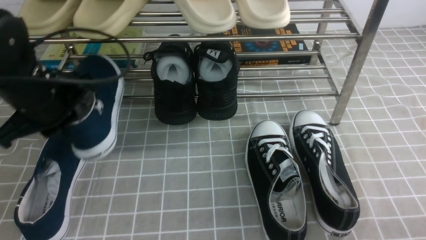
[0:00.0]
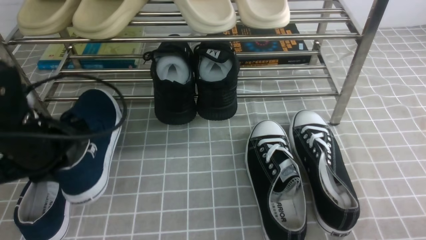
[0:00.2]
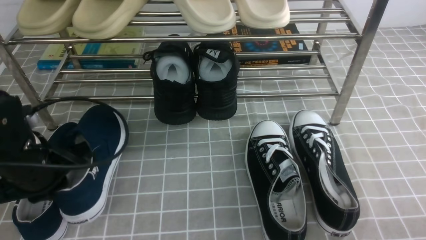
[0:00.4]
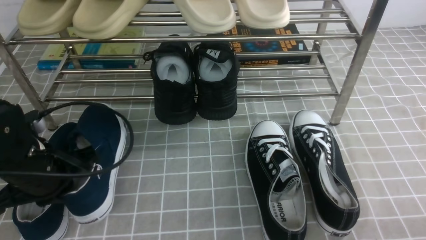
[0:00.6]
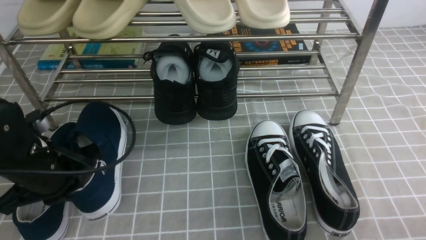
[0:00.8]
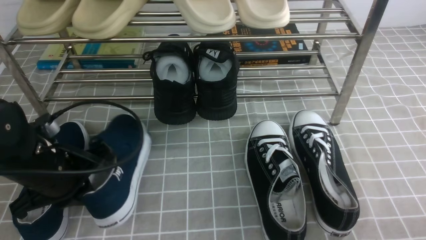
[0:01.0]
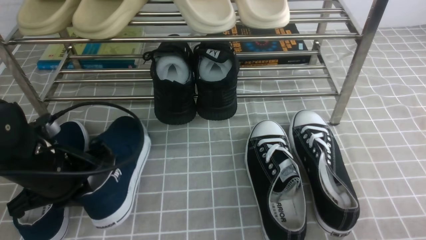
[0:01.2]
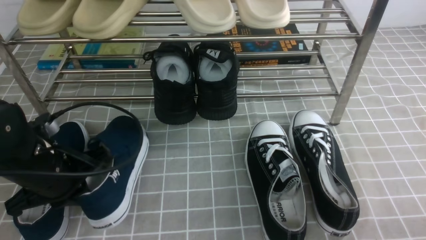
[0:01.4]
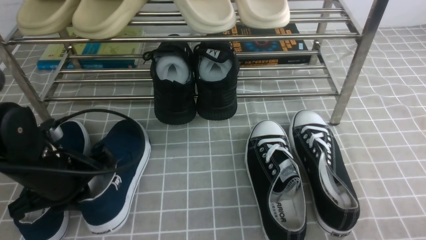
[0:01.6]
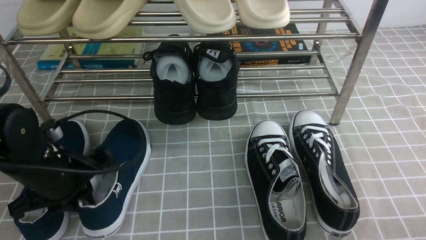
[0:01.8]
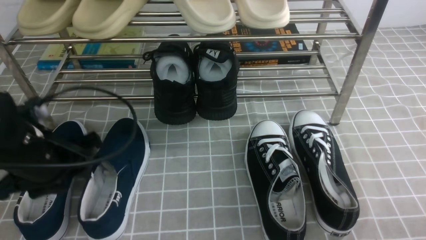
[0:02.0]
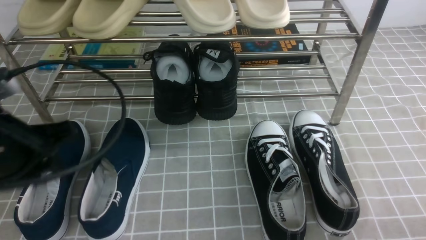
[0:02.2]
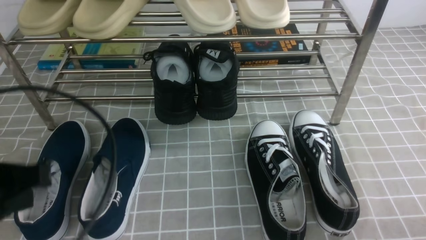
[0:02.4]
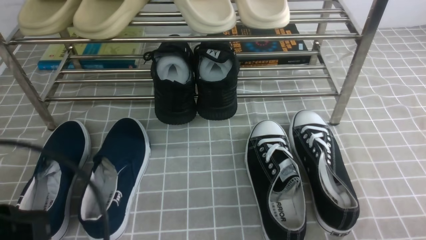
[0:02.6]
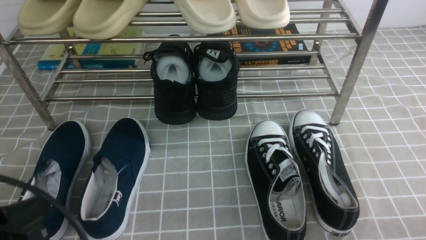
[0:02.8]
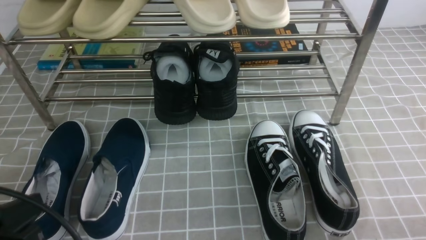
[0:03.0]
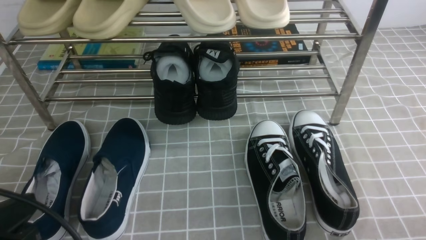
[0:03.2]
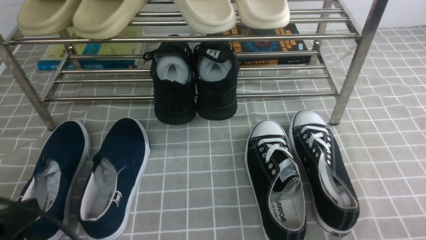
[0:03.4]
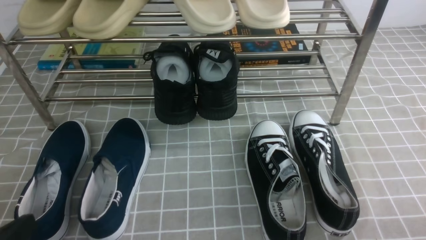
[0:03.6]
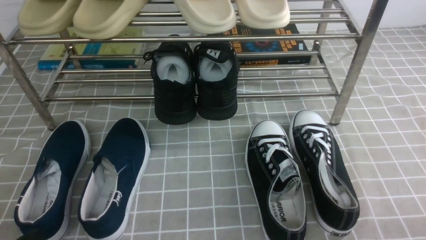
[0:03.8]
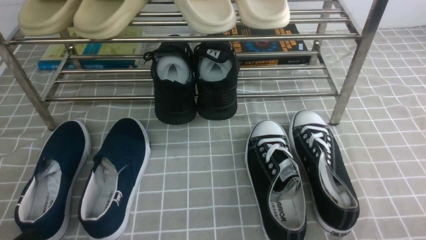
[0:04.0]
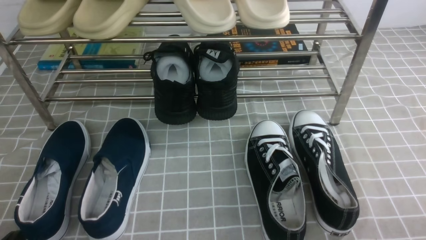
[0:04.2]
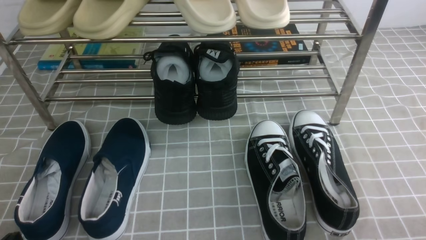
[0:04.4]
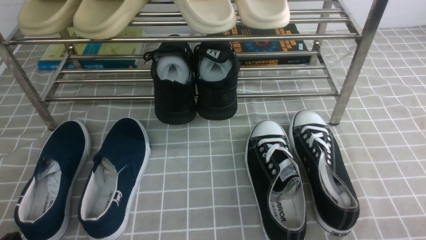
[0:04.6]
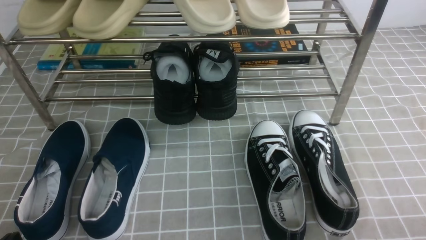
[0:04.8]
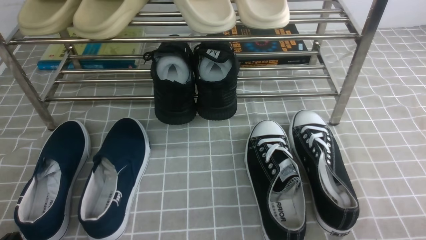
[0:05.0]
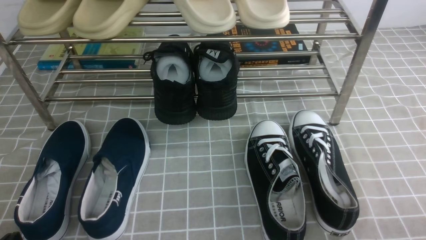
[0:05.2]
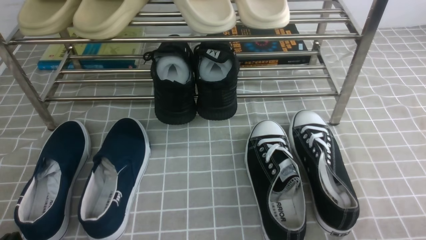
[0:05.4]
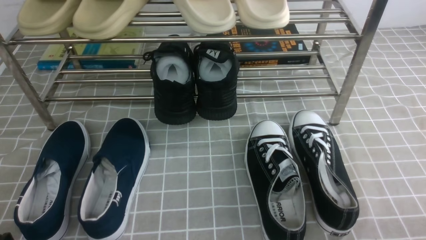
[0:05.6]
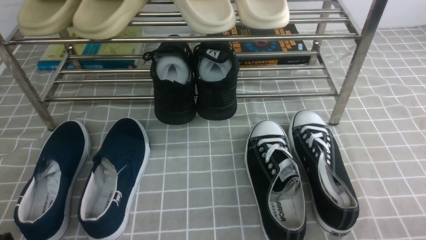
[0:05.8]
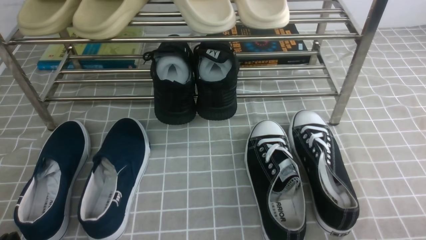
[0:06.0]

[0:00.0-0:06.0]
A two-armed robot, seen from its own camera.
Step, 0:00.0 to 0:02.0: Use your left arm to remove the clamped shoe from the shoe rack and put it down.
0:00.0 to 0:01.6: The left gripper goes roughly 10 cm downward and backward.
0:01.6 to 0:03.0: The left gripper heads backward, covering roughly 15 cm.
0:03.0 to 0:04.4: The left gripper heads downward, covering some 10 cm.
0:04.4 to 0:06.0: Neither gripper changes place.
